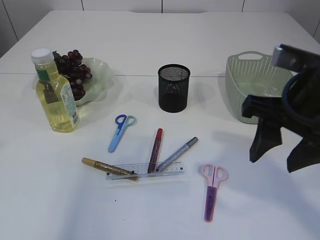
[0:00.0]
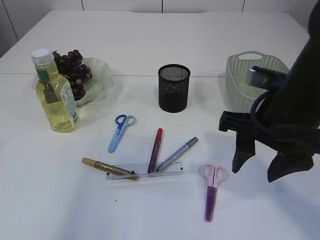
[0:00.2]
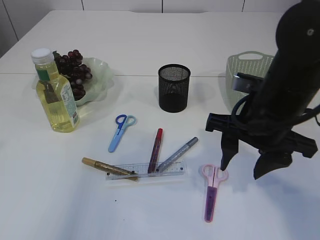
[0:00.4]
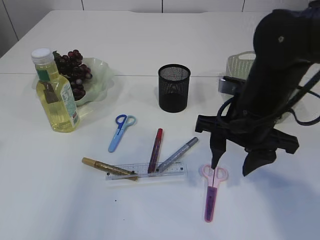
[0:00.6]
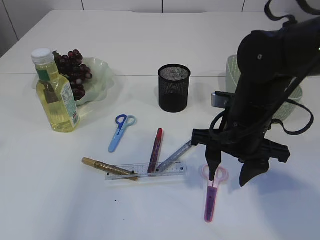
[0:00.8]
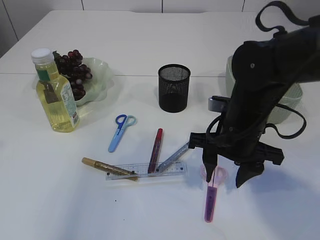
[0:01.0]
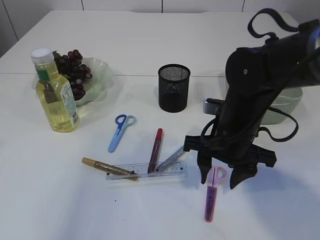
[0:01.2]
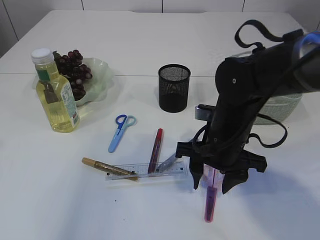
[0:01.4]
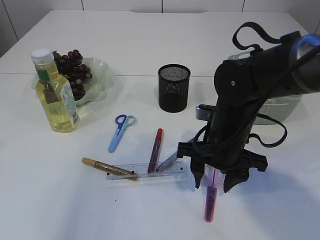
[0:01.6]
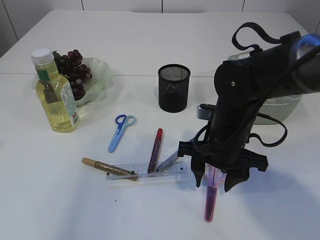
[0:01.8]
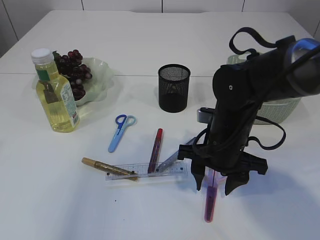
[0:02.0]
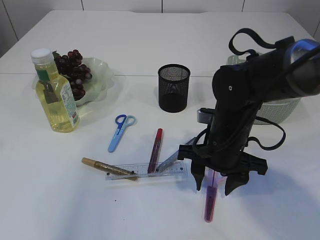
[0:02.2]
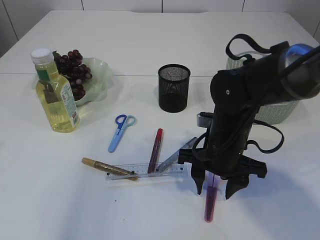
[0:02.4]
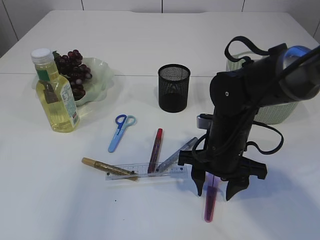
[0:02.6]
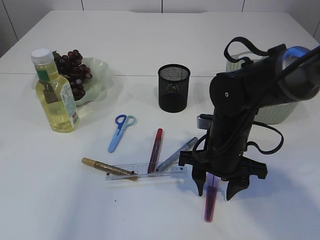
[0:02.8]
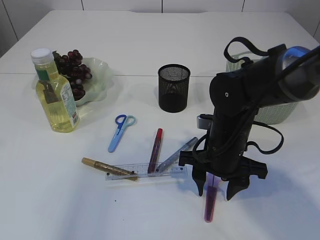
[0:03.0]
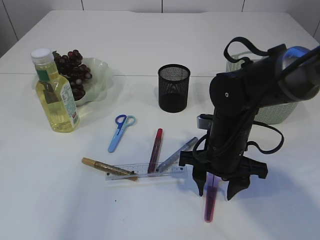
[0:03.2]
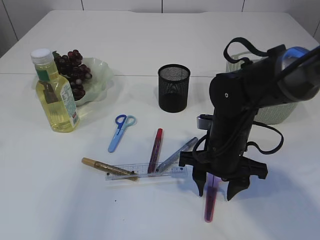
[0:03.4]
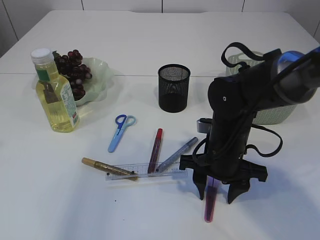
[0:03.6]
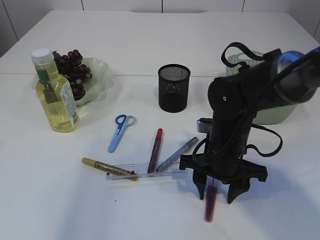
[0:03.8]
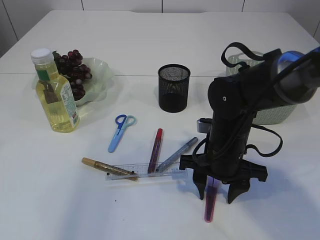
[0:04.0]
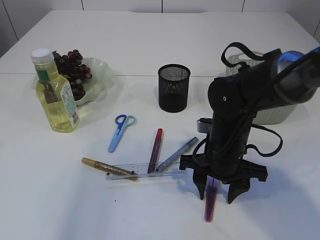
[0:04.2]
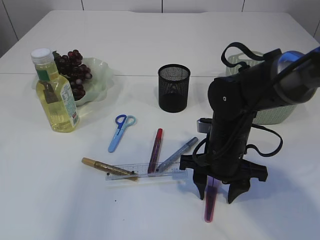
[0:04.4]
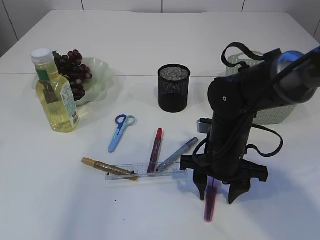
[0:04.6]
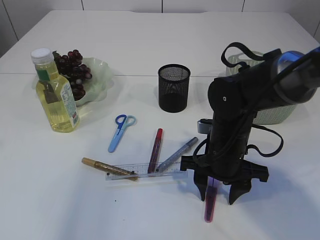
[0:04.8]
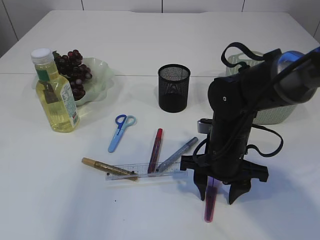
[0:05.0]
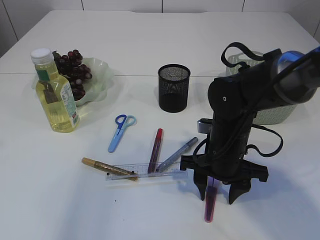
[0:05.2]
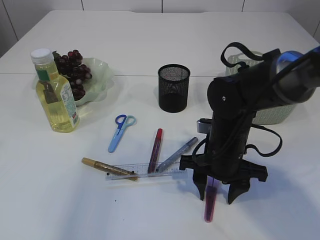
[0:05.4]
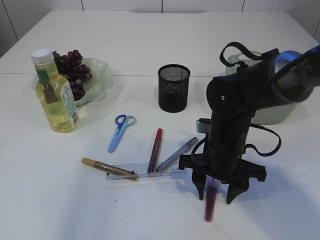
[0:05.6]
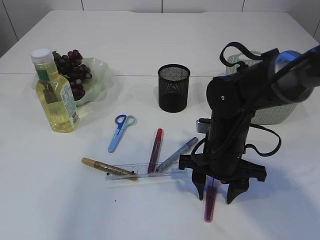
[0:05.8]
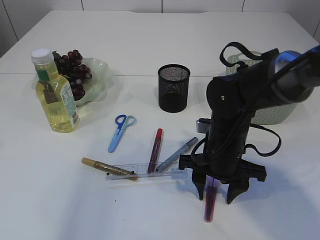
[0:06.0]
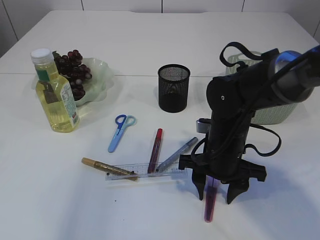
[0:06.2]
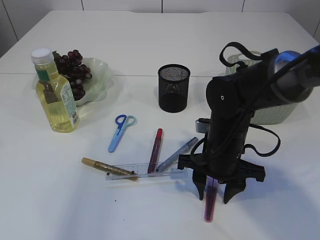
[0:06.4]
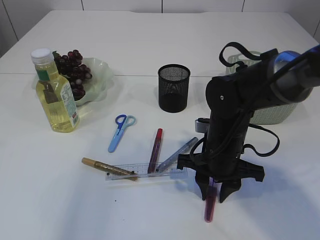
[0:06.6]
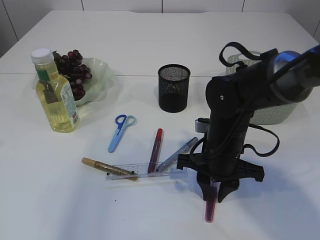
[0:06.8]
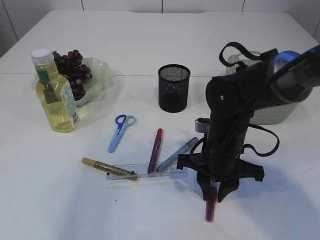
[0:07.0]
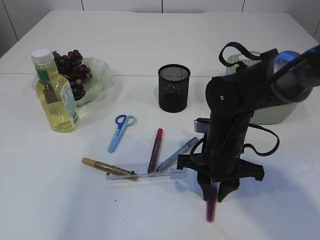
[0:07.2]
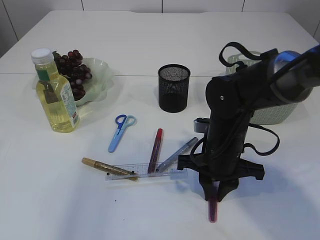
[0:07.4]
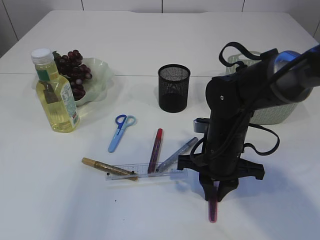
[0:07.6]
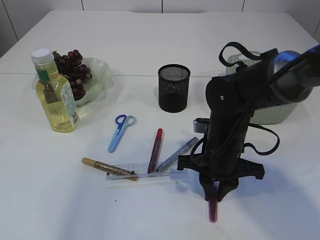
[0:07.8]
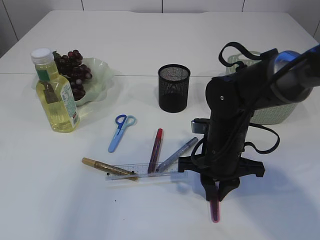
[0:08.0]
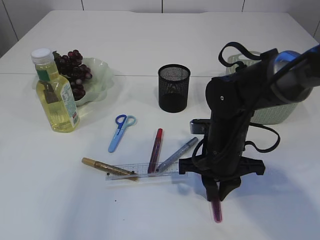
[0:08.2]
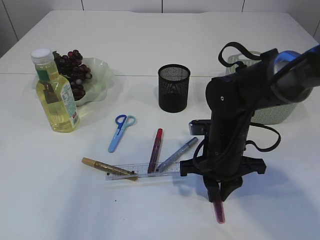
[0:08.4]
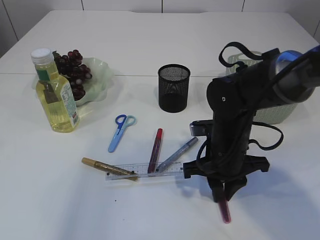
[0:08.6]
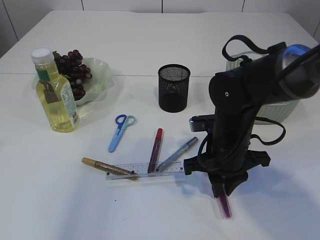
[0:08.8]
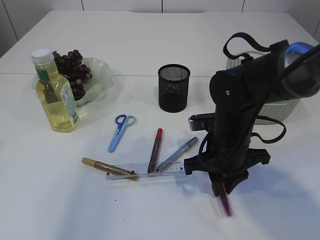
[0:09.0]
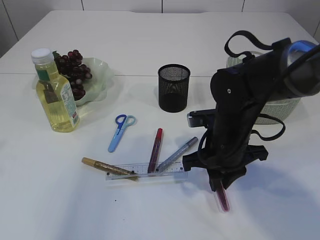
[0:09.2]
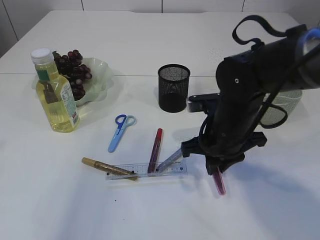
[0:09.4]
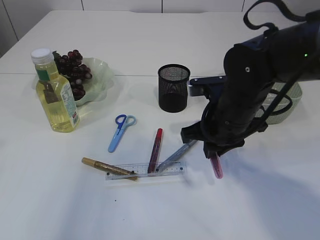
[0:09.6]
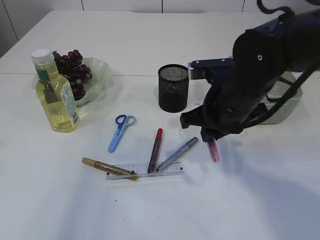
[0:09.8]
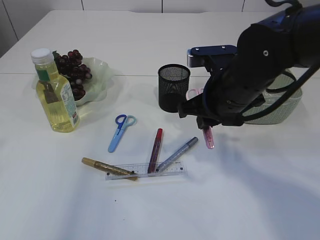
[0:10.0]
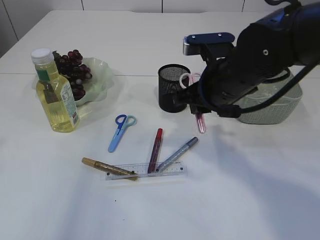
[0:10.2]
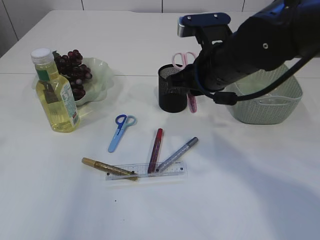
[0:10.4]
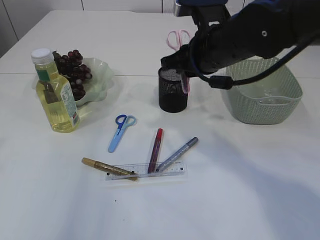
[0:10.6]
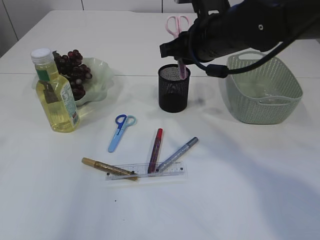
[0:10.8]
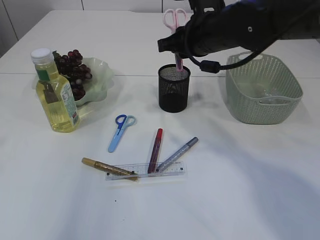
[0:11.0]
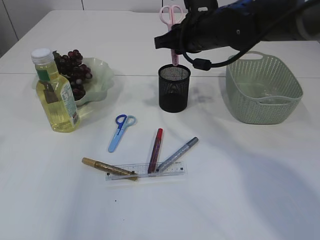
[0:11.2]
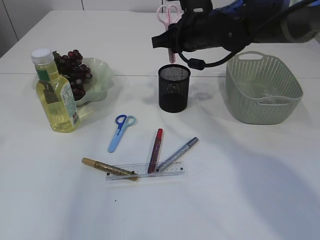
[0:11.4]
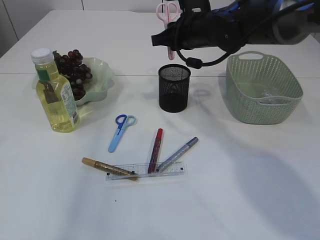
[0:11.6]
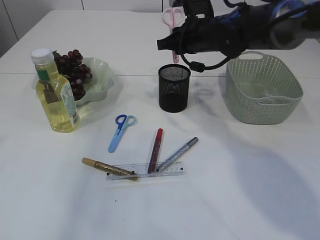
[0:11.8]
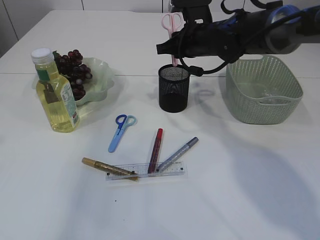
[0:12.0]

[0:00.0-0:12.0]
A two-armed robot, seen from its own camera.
Step, 0:00.0 to 0:09.4: pick up the pink scissors.
0:00.0 to 0:01.6: The right gripper is displaced downward, forward and to the left by roughly 15 cm.
0:01.6 to 0:03.0: The grippers stay close to where they were, moving slightly.
0:03.0 to 0:06.0: Neither gripper changes place.
0:06.0 to 0:07.6: The right gripper closes.
0:07.6 to 0:09.0: There are only small adjustments of the grippers.
0:09.0 to 0:10.4: The right gripper moves upward, roughly 10 cm.
0:10.4 to 0:12.0: The right gripper is displaced forward by approximately 15 cm.

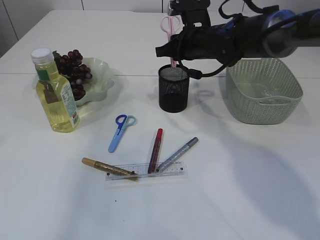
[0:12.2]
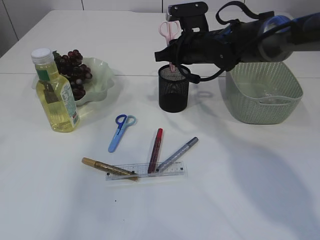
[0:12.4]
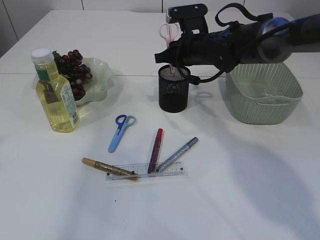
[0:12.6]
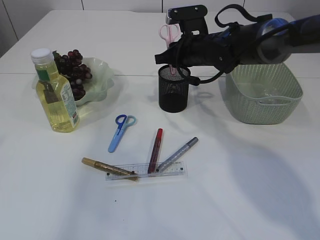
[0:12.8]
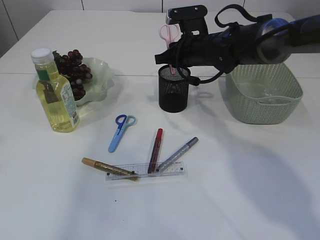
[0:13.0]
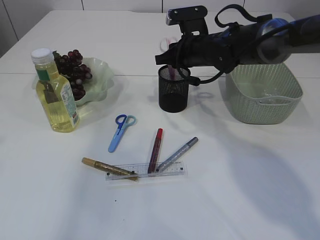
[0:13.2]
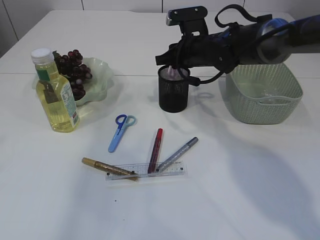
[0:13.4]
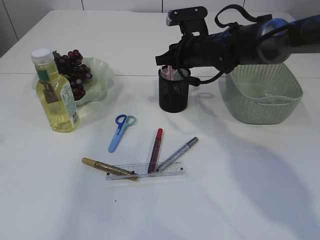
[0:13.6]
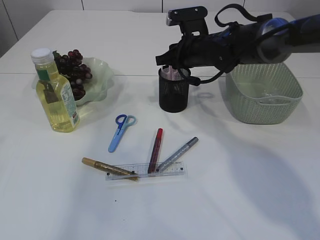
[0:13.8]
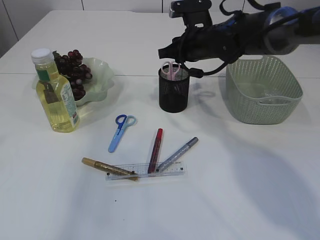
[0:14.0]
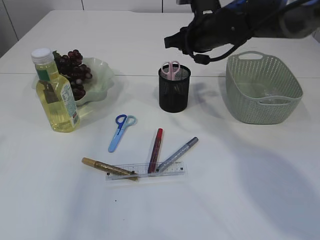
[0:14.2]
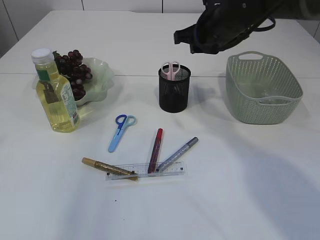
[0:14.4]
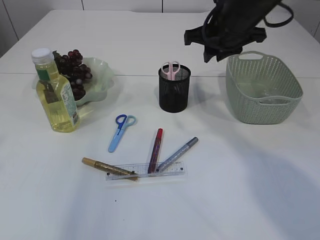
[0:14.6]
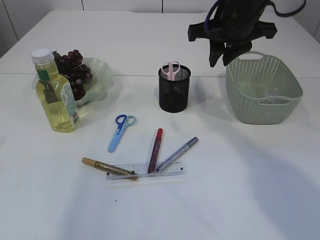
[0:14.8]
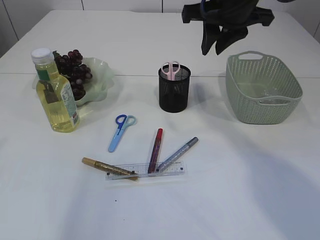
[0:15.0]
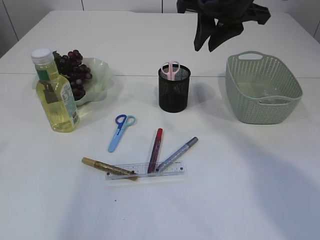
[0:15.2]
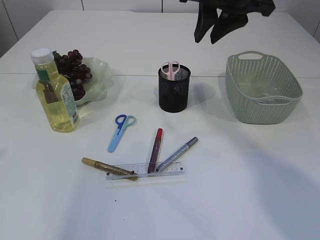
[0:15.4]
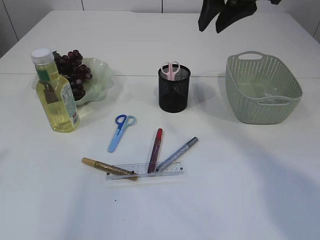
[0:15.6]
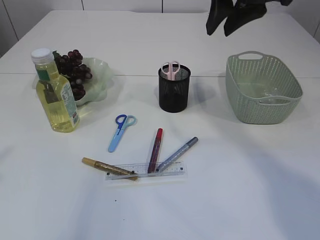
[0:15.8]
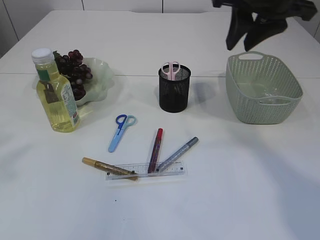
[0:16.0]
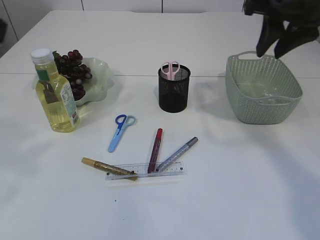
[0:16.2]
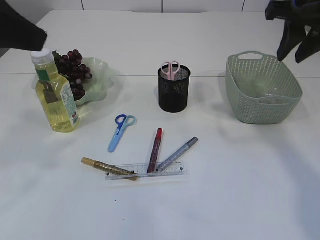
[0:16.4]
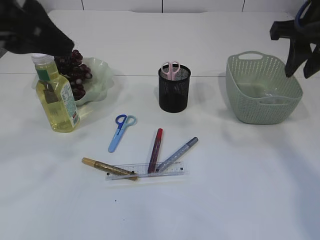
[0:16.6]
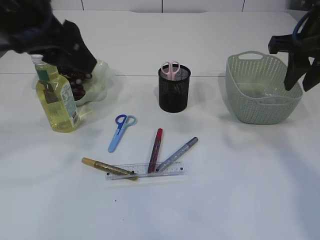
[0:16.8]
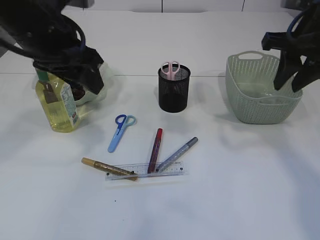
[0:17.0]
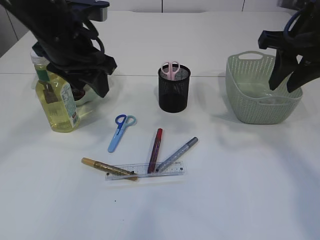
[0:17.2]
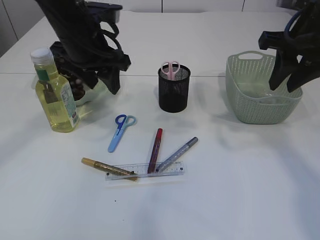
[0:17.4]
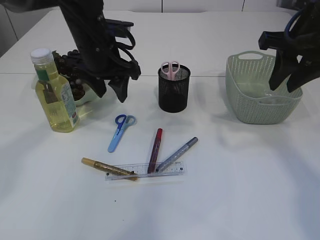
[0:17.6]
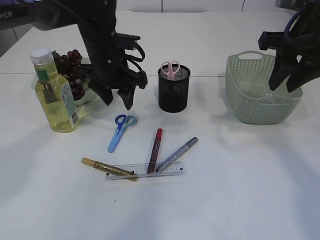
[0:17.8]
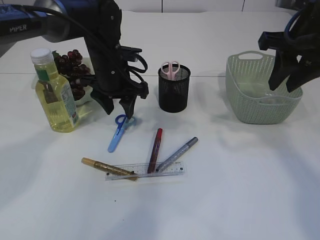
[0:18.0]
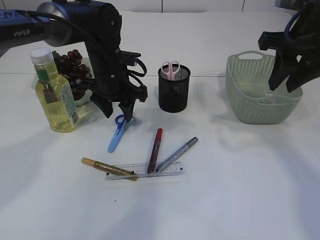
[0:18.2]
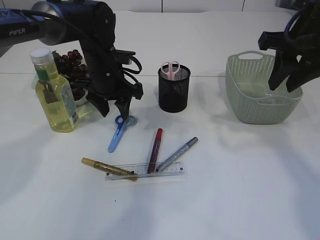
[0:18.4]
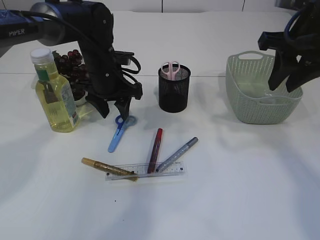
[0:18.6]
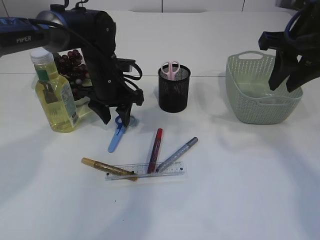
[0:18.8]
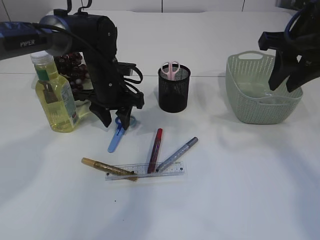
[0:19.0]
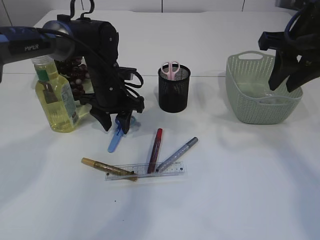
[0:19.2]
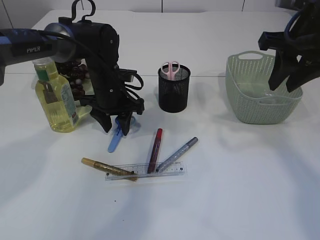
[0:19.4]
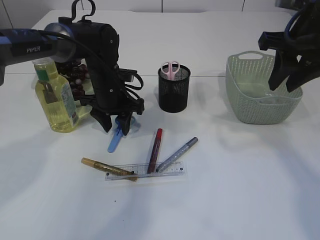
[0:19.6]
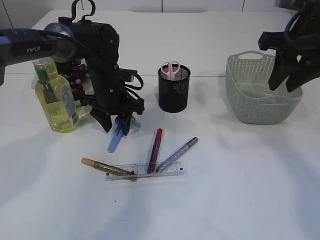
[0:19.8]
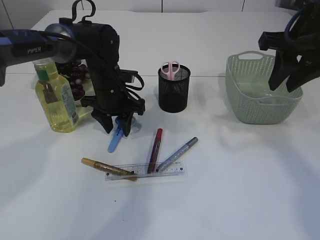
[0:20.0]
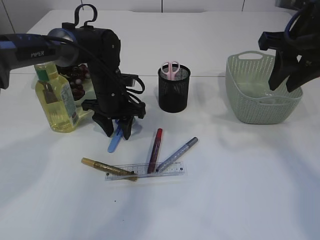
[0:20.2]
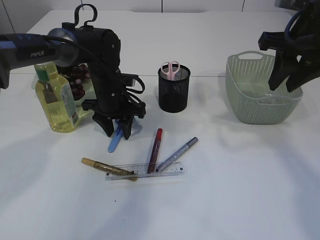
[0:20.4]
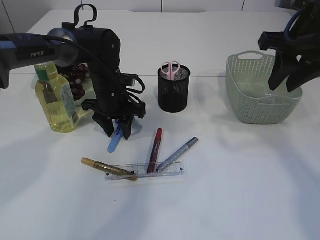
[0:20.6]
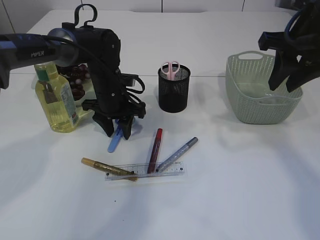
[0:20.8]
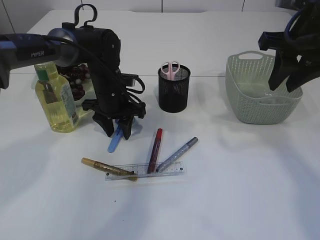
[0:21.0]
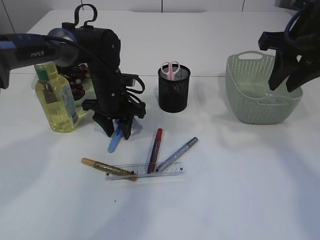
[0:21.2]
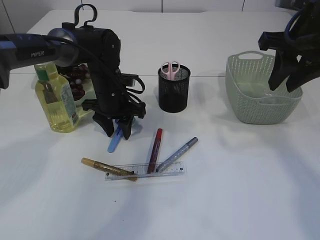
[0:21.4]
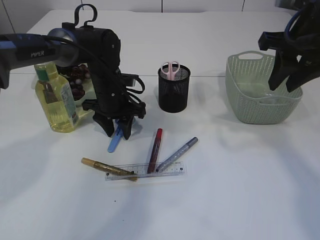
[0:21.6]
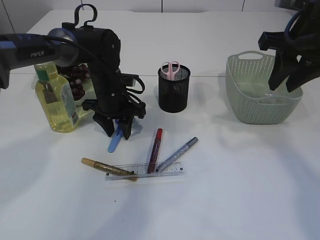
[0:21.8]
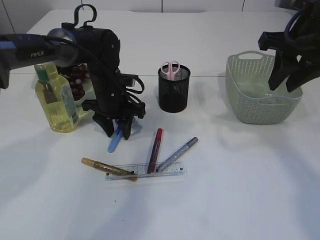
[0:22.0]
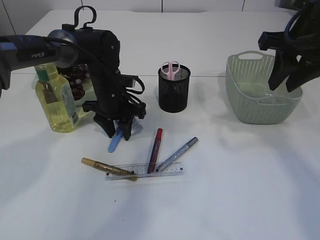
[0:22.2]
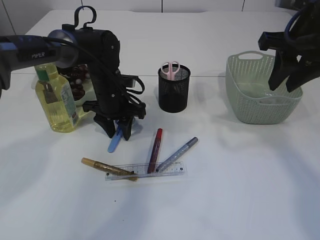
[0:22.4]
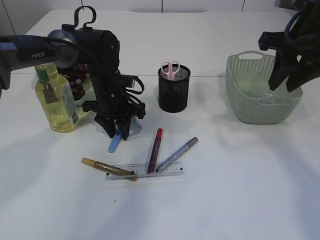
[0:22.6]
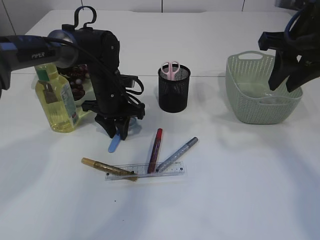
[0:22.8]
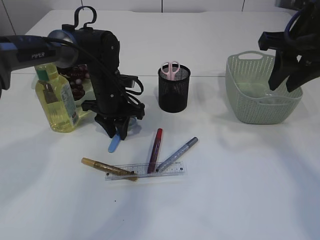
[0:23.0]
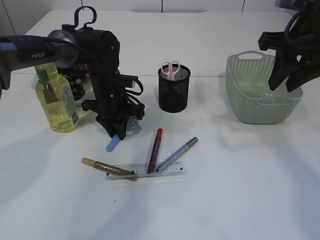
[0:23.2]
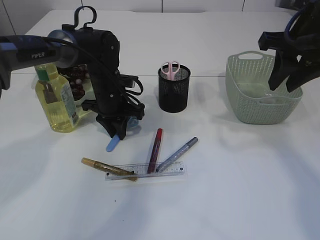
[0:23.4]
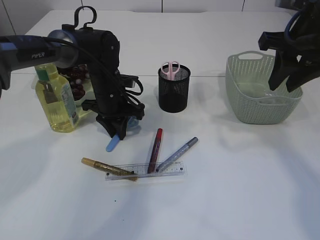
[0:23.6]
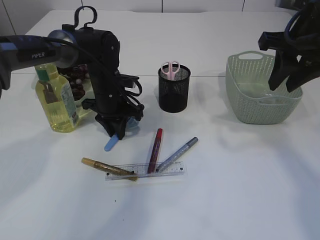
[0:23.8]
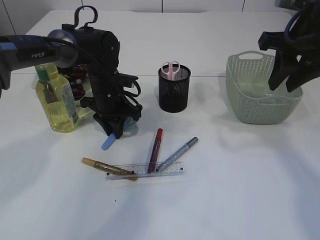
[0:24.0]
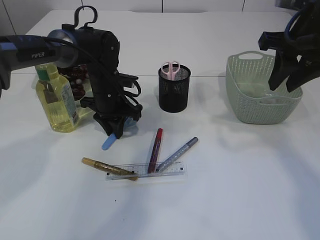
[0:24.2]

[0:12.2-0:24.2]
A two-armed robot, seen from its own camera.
Step, 0:12.2 to 0:14.2: Place the pink scissors into the pen holder.
0:12.2 to 0:13.8: The grippers stay close to where they were, moving slightly.
0:13.8 to 0:15.2: The right gripper goes about 20 cm upward and backward.
0:15.2 to 0:16.6: The right gripper goes roughly 10 cm to the right. Meanwhile the left gripper heads to the right and forward, covering approximately 15 cm.
0:16.6 to 0:18.2: The left gripper travels downward, forward and to the right by approximately 30 cm.
0:18.2 to 0:19.8: There are only small adjustments of the grippers.
0:19.8 to 0:22.6: The two grippers keep their place.
0:22.6 to 0:24.2: The grippers make only small movements.
